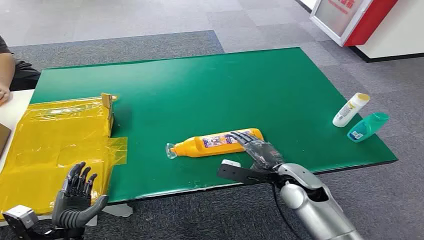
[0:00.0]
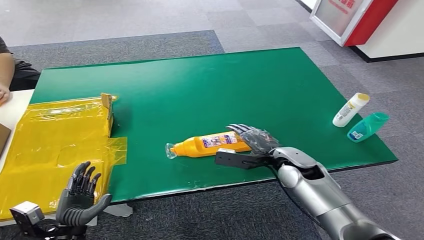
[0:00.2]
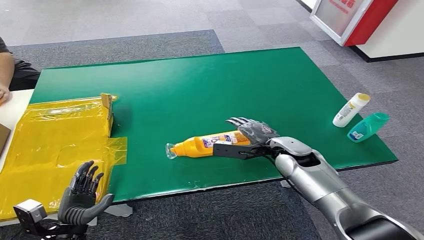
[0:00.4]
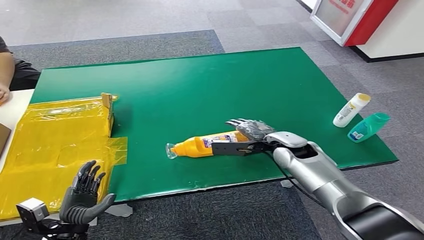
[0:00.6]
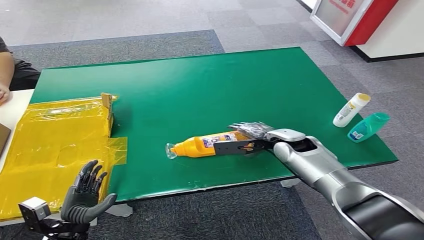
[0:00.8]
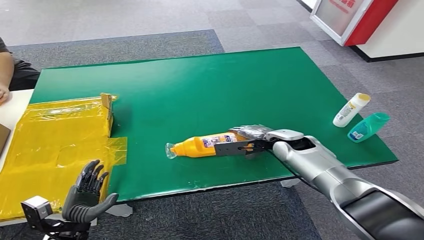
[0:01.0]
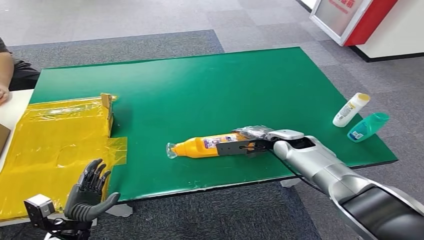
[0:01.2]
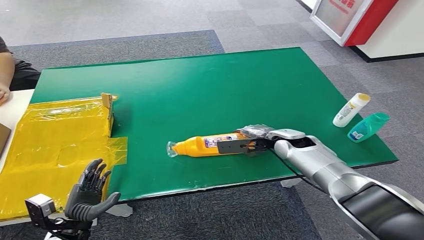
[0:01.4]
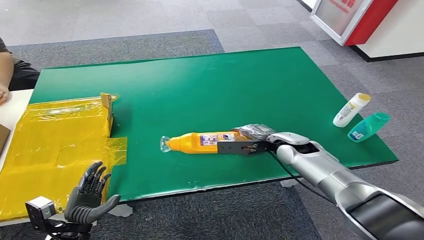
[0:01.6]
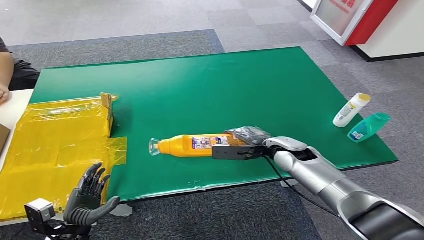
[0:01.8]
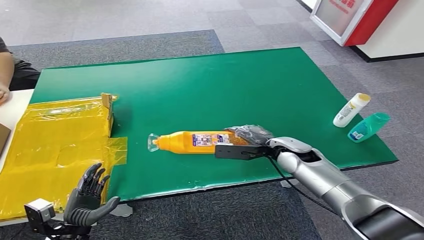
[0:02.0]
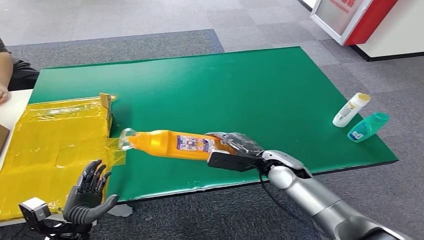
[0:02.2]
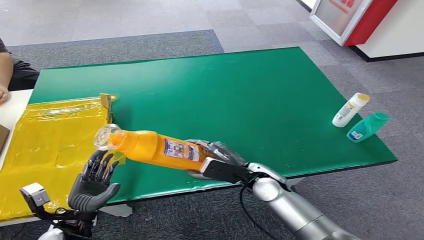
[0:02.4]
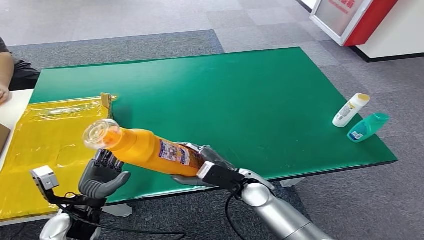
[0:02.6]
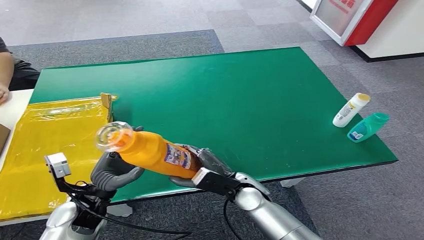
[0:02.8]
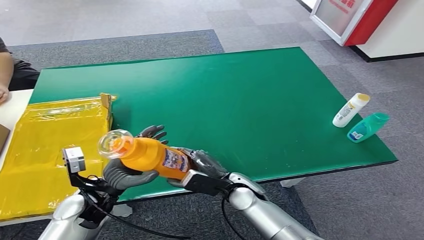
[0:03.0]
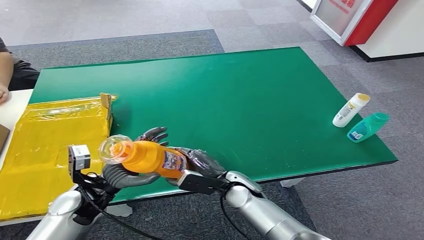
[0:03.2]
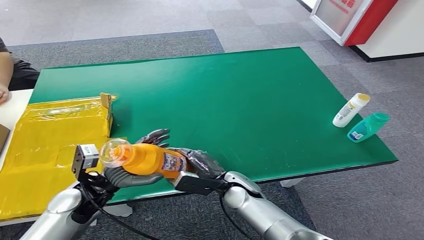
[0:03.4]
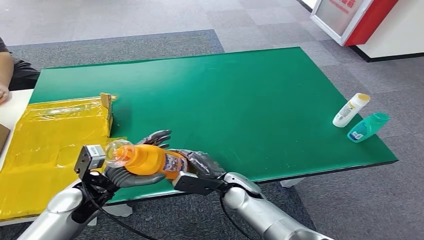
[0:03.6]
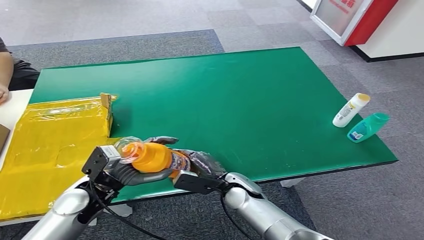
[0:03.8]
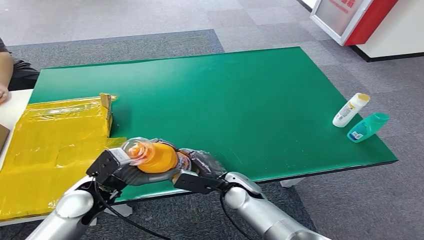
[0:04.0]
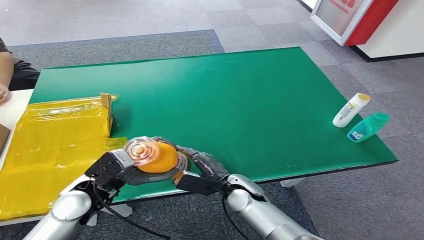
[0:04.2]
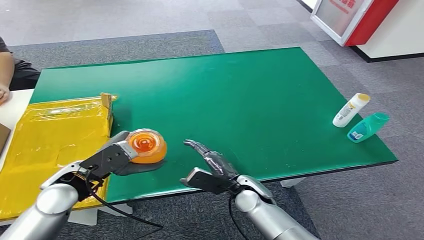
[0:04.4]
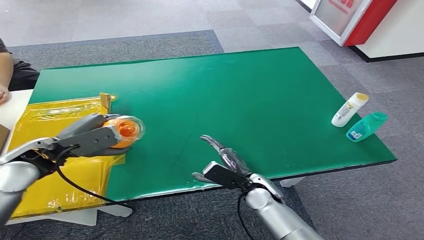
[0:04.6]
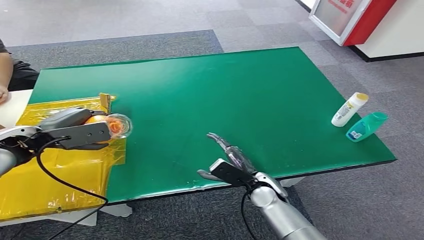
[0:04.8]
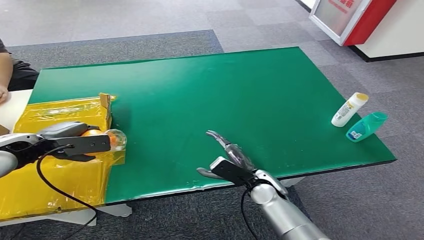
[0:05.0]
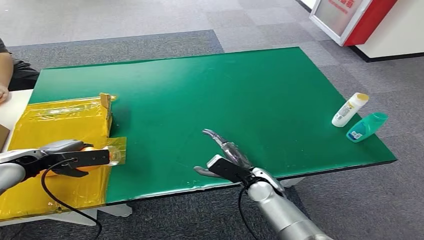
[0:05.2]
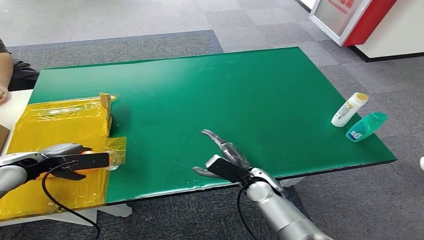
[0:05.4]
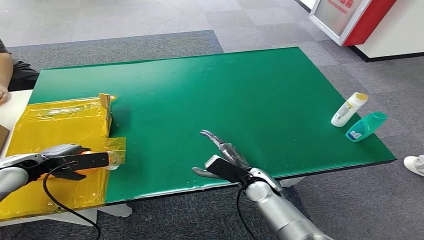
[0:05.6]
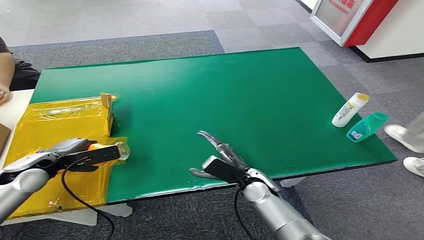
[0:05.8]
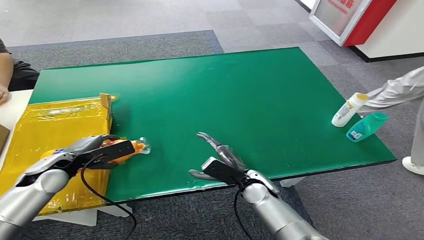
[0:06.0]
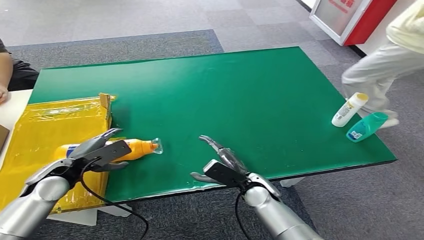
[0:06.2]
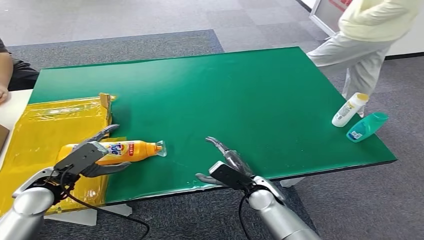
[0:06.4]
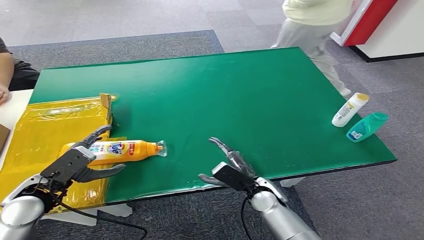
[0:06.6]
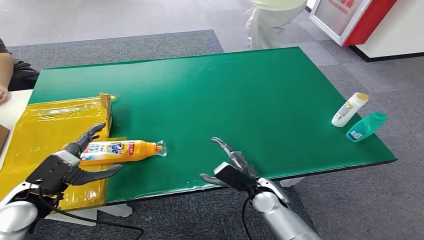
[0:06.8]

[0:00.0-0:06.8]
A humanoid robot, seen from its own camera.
Step, 0:00.0 to 0:02.2: Pick up the bottle from the table.
Step, 0:02.4 to 0:06.6: Turn the bottle to the front side.
0:01.4 to 0:02.8: The right hand is displaced to the left and backward by some 20 cm; the left hand moves upward, forward and to the right, some 15 cm.
0:04.0 to 0:05.4: The right hand is displaced to the right by some 5 cm. Meanwhile the left hand moves to the left and forward, some 20 cm.
0:05.4 to 0:06.8: The left hand travels backward and to the right by roughly 10 cm.
